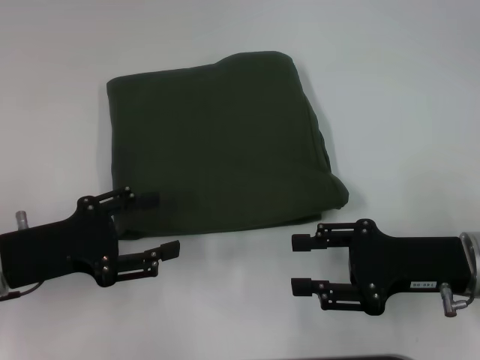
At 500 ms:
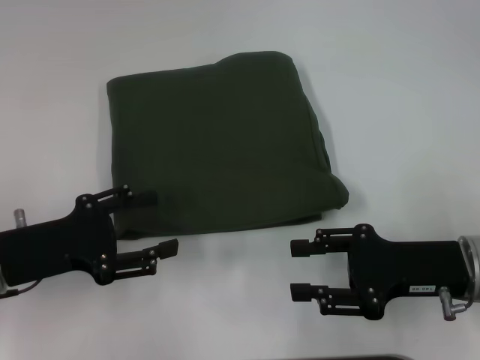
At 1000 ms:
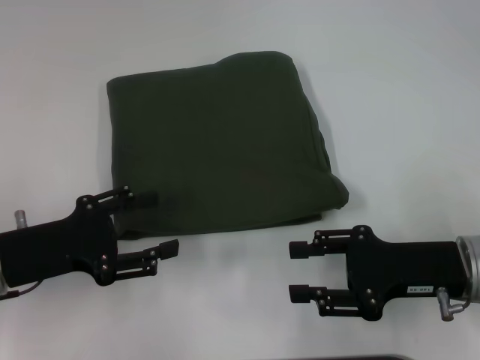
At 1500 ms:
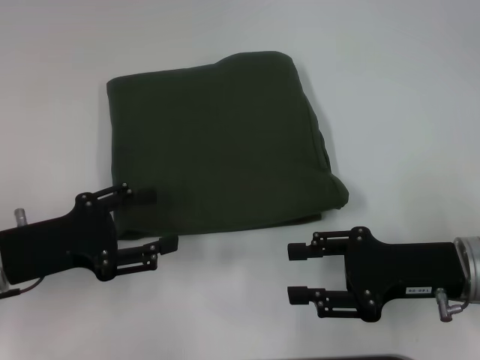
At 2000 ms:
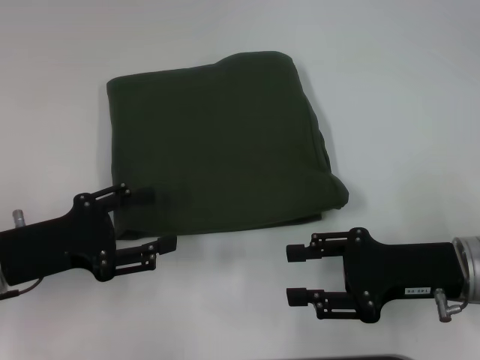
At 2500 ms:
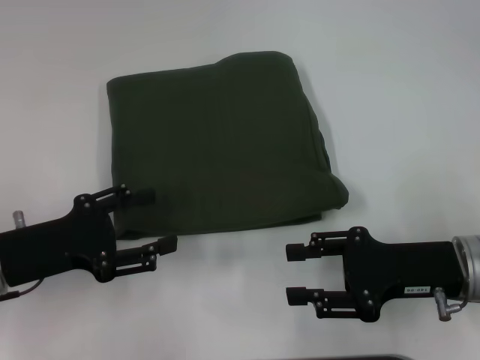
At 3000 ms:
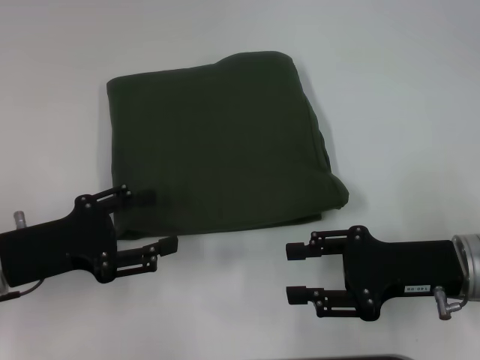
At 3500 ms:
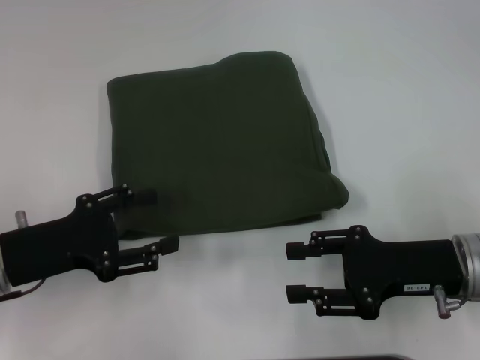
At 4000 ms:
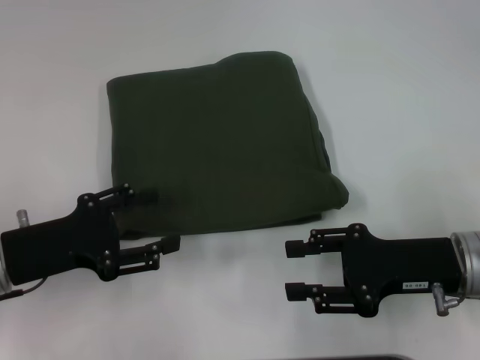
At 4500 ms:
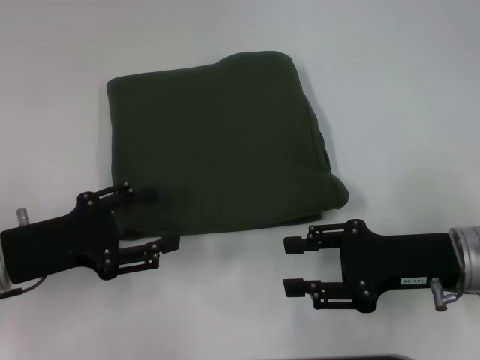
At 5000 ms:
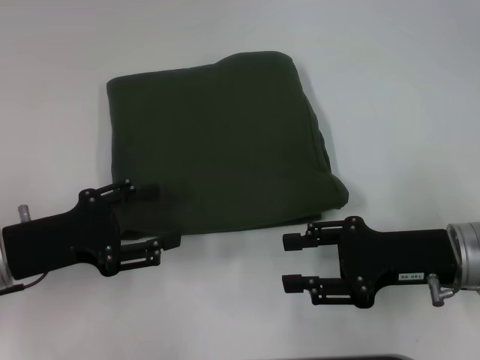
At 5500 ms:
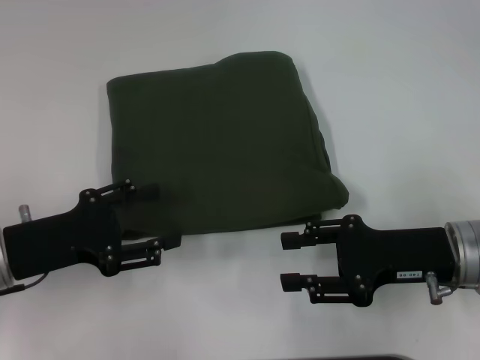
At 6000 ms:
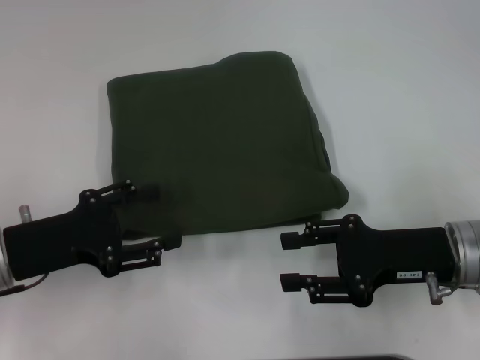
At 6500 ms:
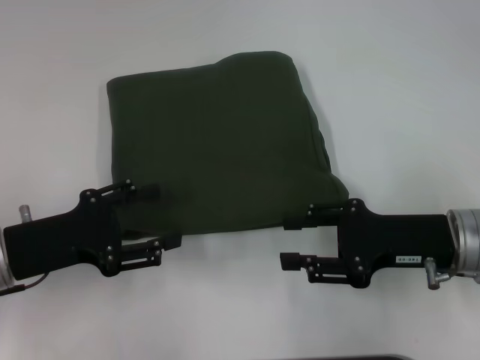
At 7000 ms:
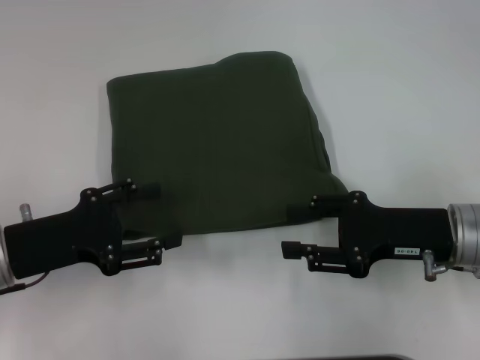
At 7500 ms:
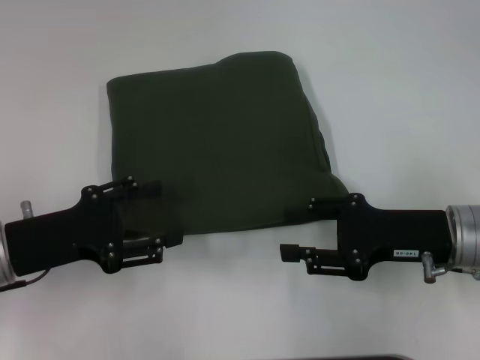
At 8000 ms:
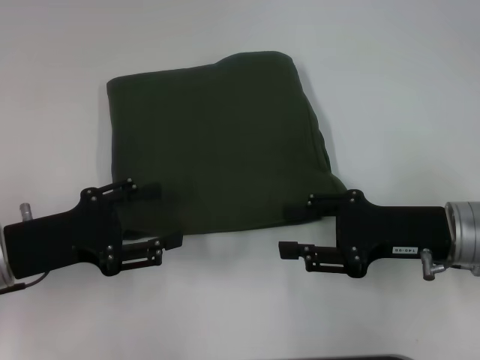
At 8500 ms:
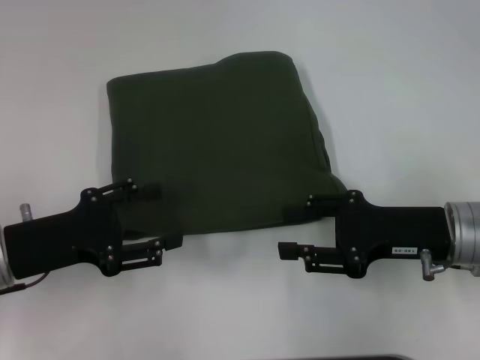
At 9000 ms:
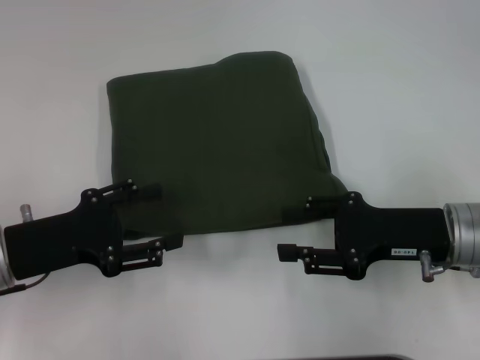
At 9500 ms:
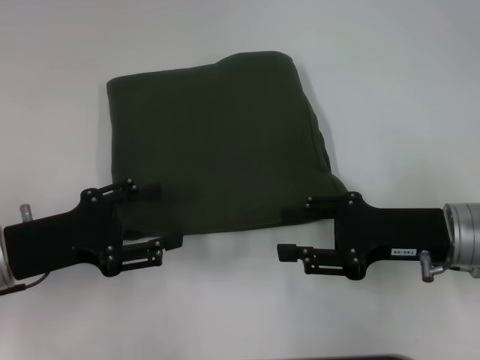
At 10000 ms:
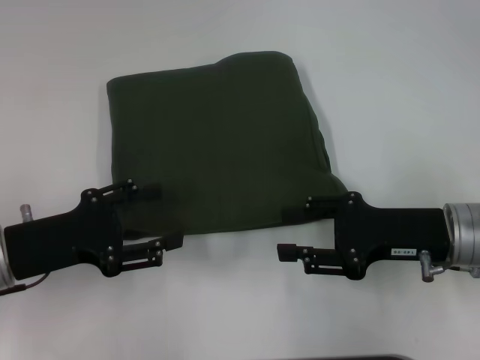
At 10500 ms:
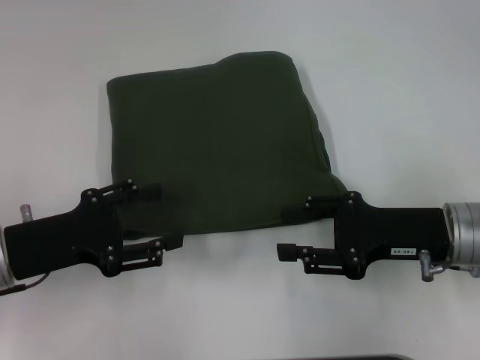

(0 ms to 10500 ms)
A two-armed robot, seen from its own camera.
0 ms - 4000 ms: Neither gripper changes place.
4000 ms - 6500 ms: The grippers stay close to where they were, moving slightly.
6500 ms - 10500 ms: Both grippers stay put.

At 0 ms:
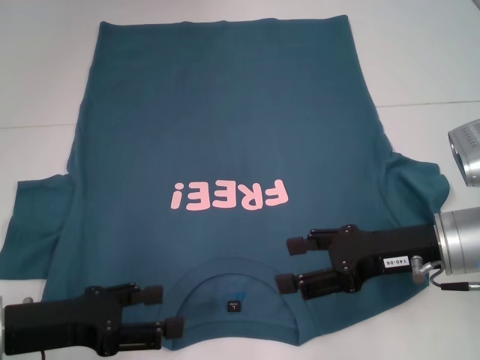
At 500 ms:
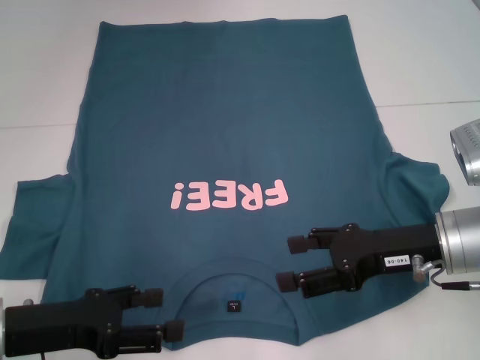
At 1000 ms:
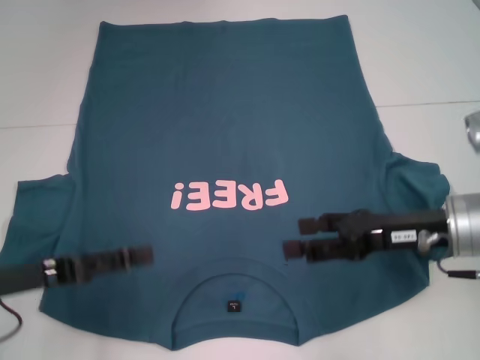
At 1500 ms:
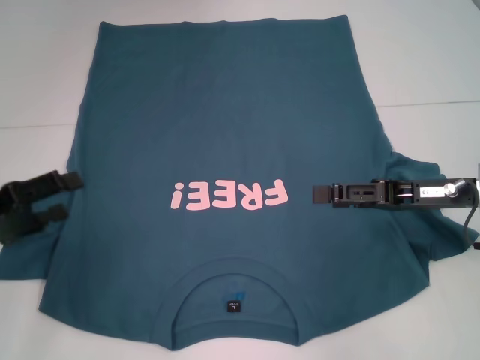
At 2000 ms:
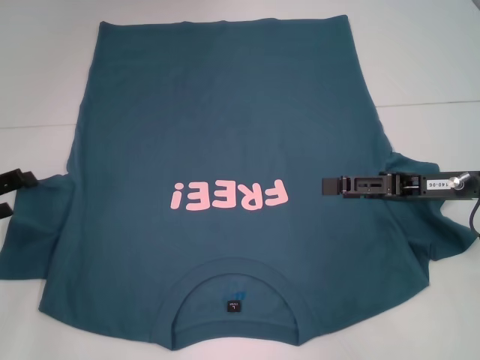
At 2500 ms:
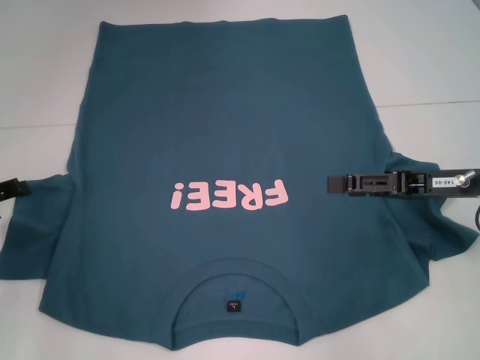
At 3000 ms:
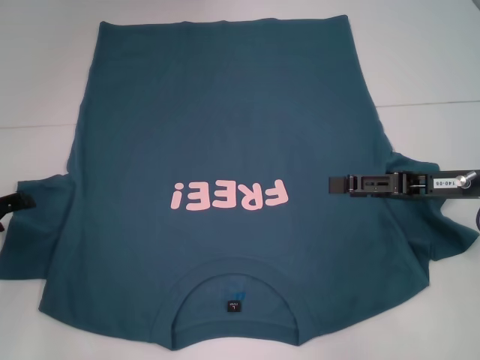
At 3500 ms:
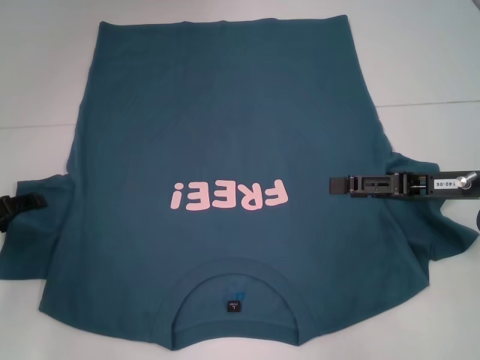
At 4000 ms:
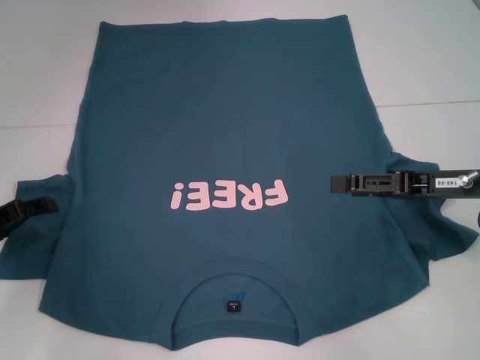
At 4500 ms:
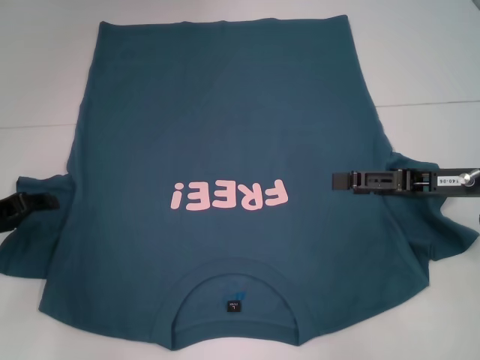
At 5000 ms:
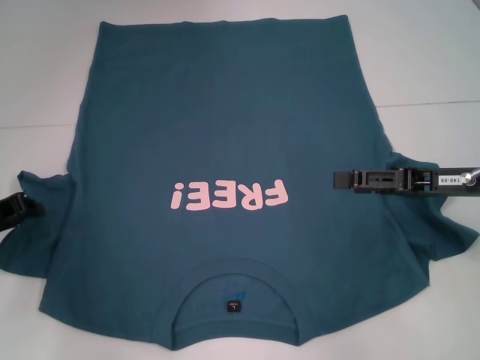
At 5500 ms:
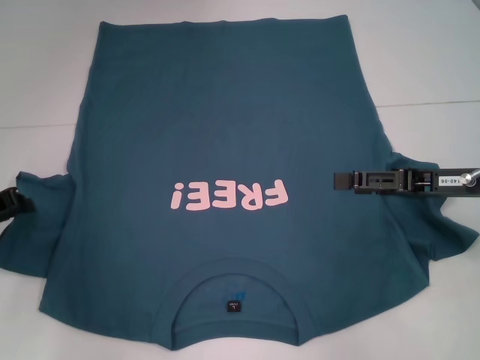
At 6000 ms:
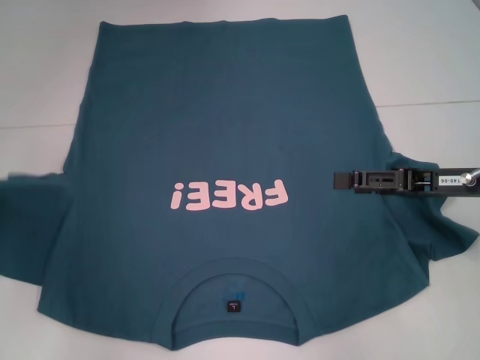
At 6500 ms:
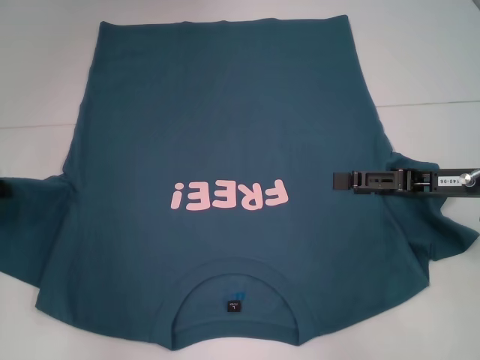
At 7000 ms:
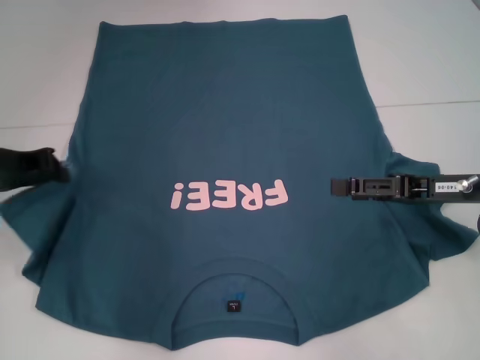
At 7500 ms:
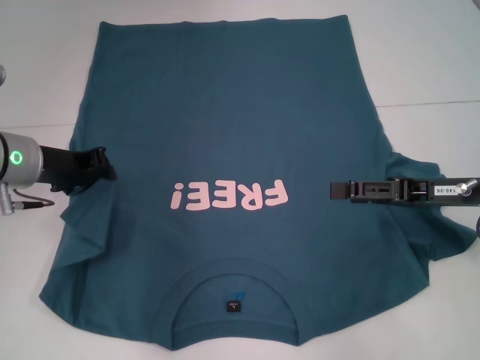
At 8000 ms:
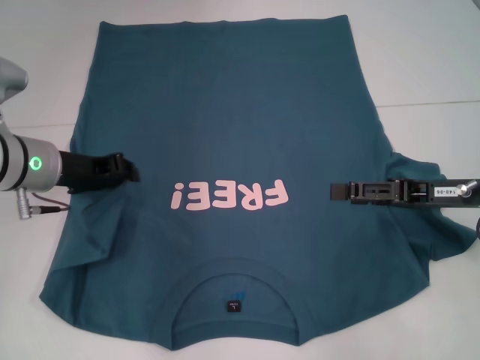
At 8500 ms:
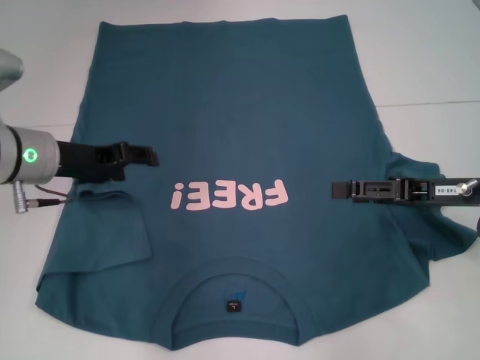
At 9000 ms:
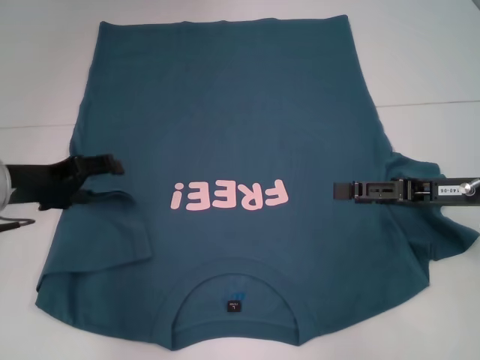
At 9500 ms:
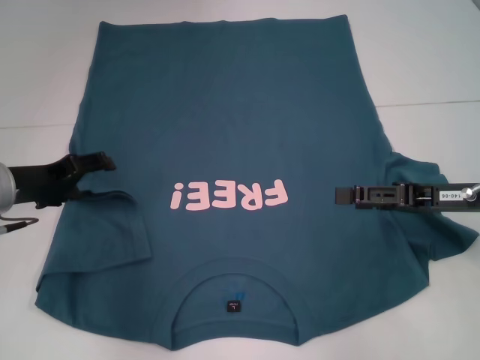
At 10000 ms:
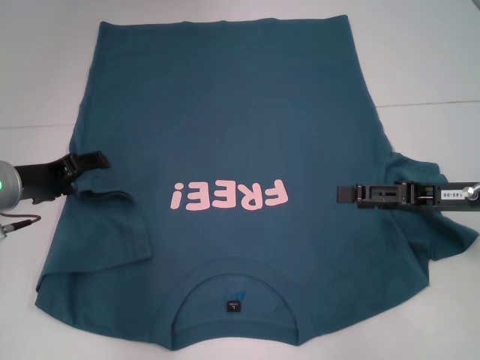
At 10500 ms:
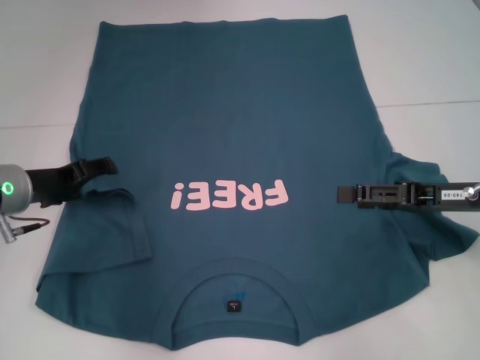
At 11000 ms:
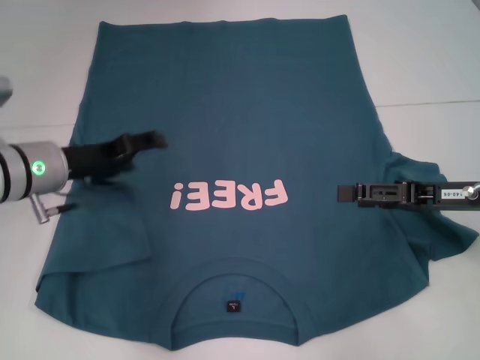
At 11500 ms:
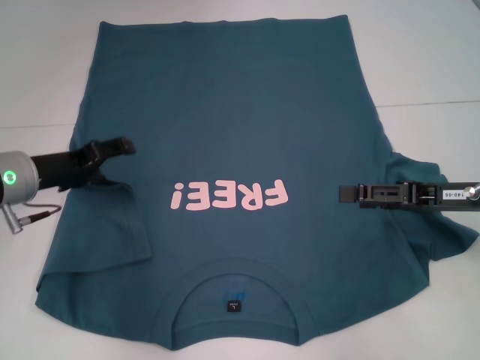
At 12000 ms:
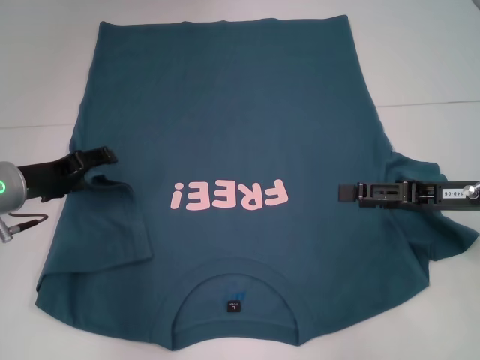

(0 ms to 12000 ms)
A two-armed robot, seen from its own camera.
0 ms - 2000 ms: The left gripper moves to the left and forward, about 15 cm. The right gripper heads to the right, covering some 5 cm.
2000 ms - 4000 ms: The grippers move only a little.
4000 ms - 6000 ms: The left gripper closes up.
6000 ms - 8000 ms: The left gripper shifts about 15 cm to the right.
8000 ms - 10000 ms: The left gripper shifts by about 5 cm, and opens its fingers.
10000 ms - 12000 ms: There are only small adjustments of the grippers.

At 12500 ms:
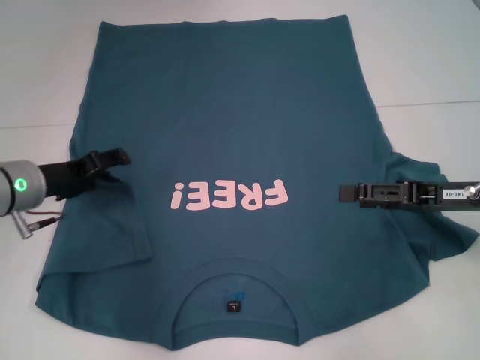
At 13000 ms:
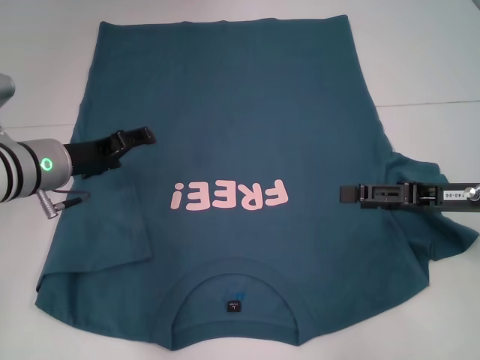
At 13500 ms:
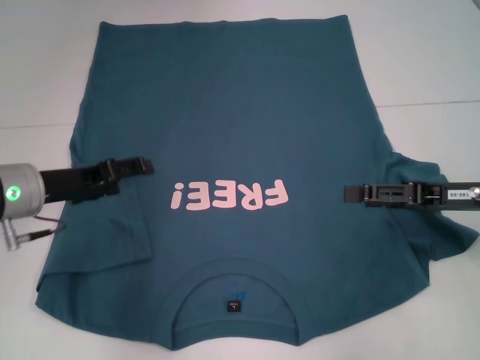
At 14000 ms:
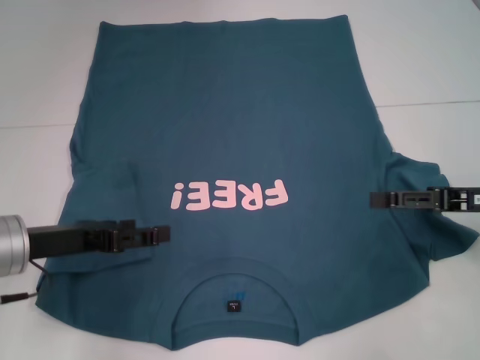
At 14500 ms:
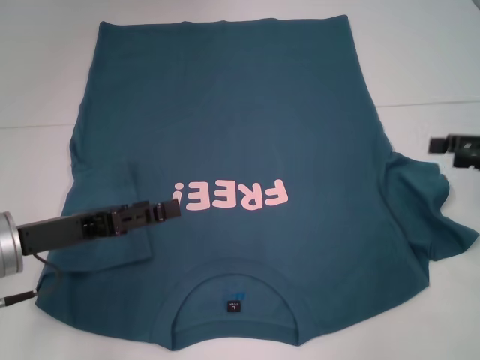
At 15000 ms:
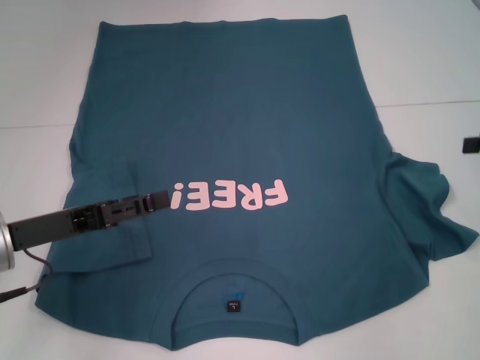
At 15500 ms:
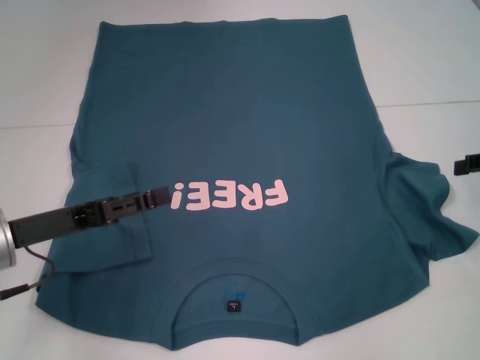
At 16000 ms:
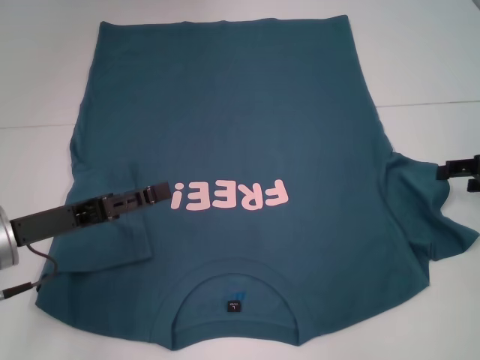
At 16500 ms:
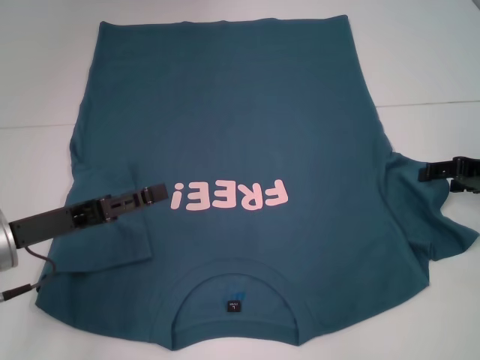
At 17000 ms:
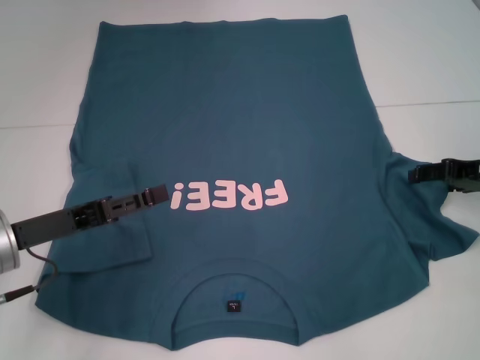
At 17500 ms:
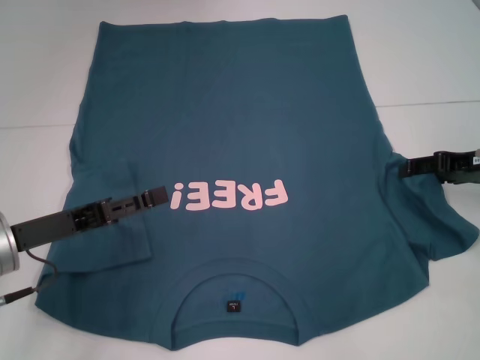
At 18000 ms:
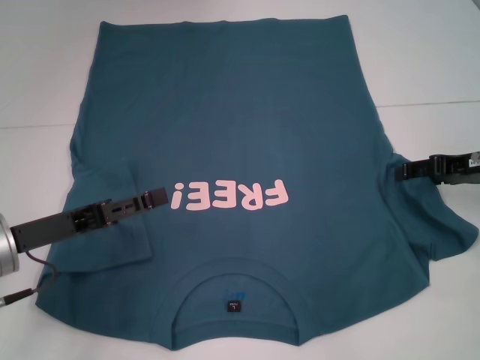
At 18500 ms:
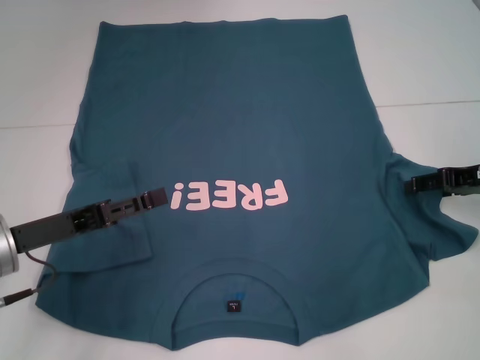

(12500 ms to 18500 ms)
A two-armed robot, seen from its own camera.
12500 ms - 14500 ms: The left gripper heads backward, covering about 10 cm, while the right gripper travels to the right by about 10 cm.
14500 ms - 16500 ms: The right gripper changes place by approximately 5 cm.
16500 ms - 18500 ms: The grippers make only small movements.
